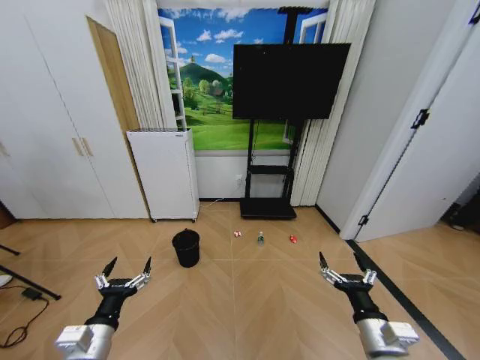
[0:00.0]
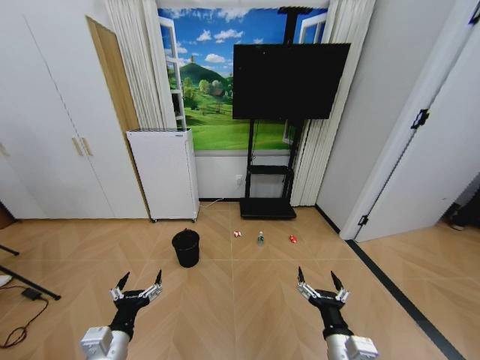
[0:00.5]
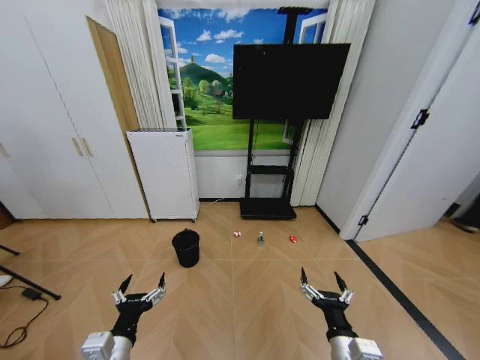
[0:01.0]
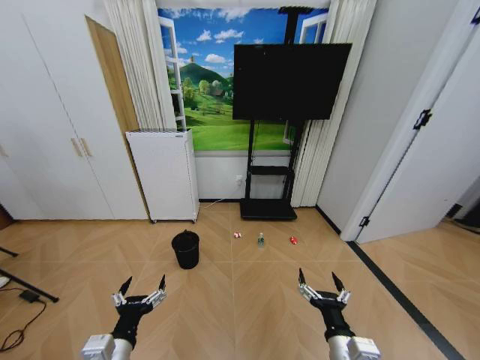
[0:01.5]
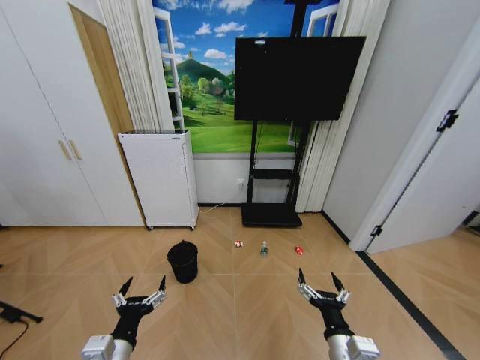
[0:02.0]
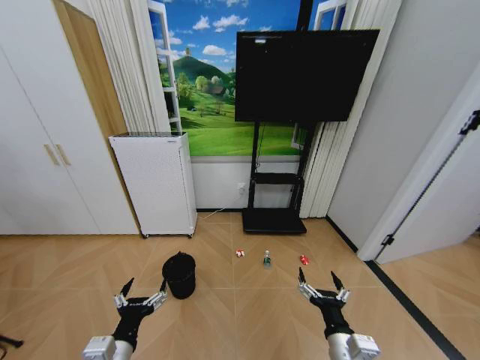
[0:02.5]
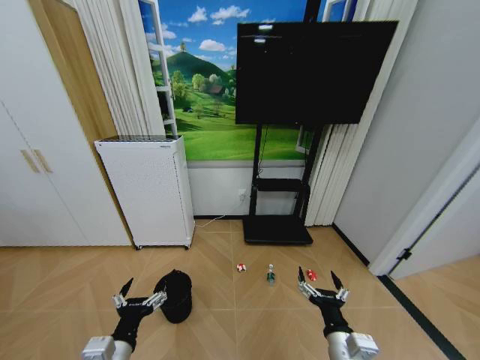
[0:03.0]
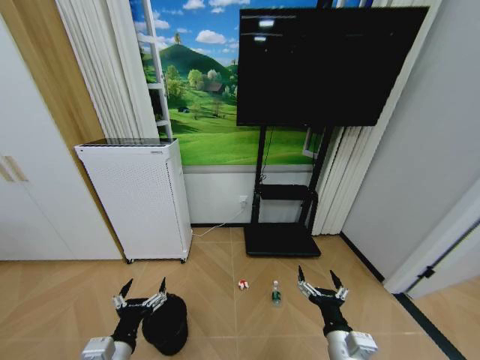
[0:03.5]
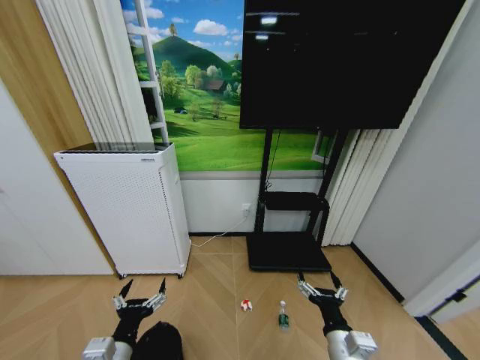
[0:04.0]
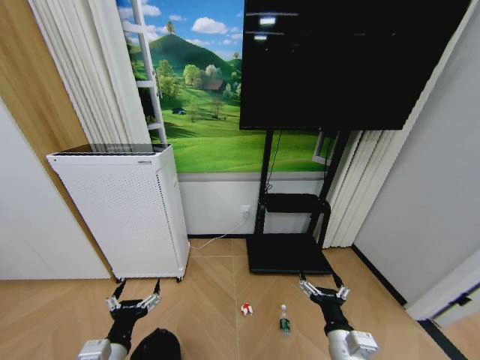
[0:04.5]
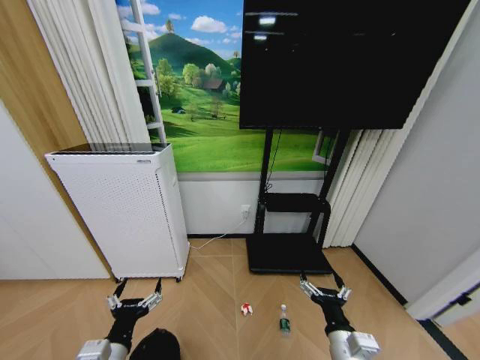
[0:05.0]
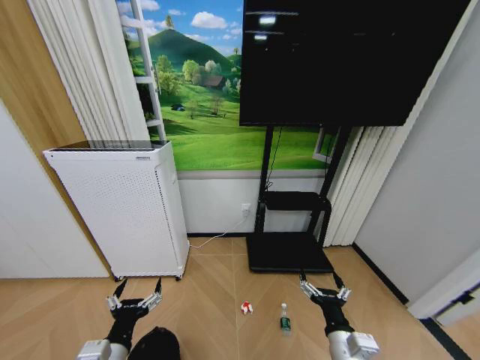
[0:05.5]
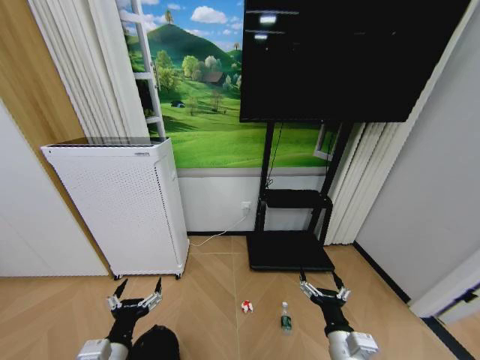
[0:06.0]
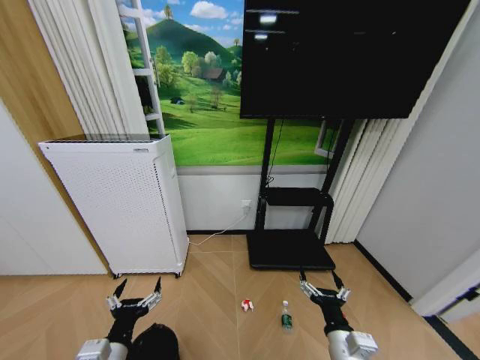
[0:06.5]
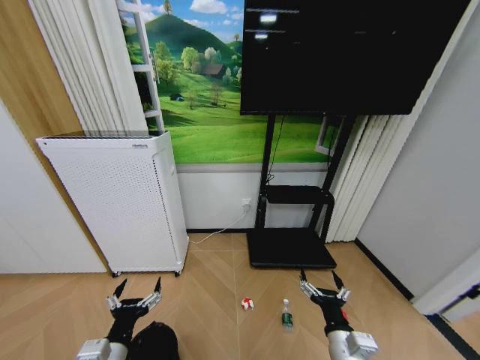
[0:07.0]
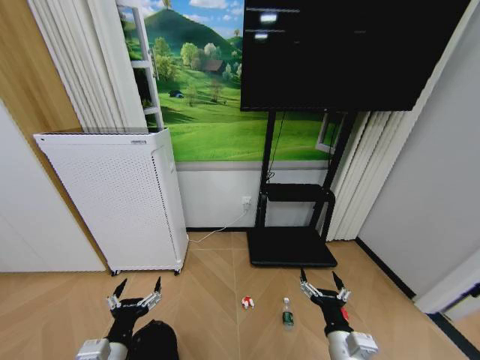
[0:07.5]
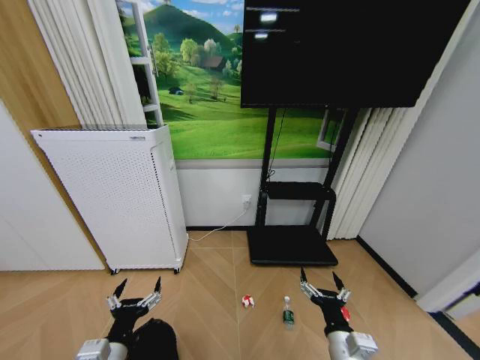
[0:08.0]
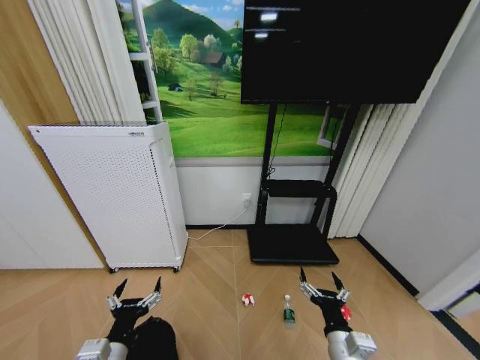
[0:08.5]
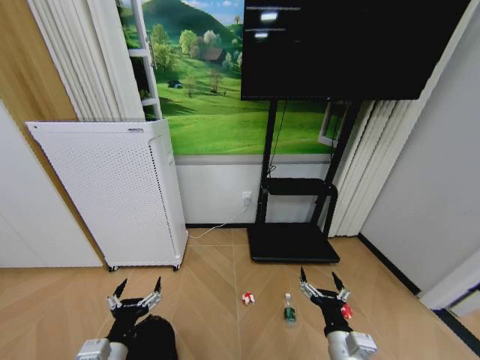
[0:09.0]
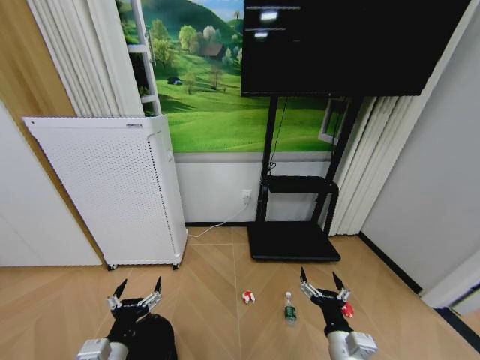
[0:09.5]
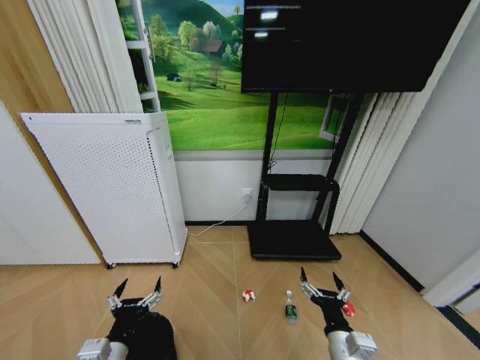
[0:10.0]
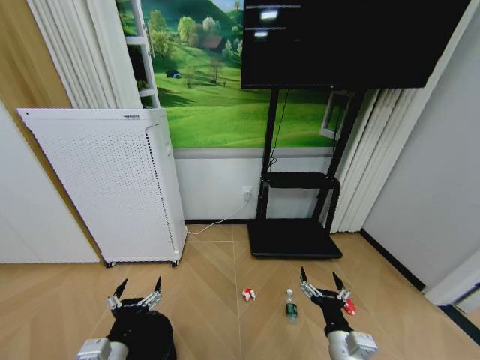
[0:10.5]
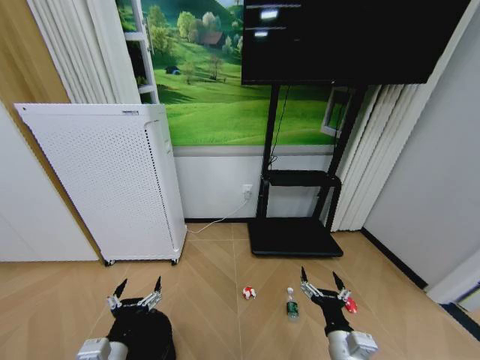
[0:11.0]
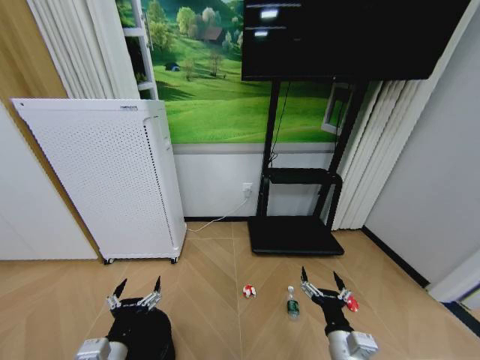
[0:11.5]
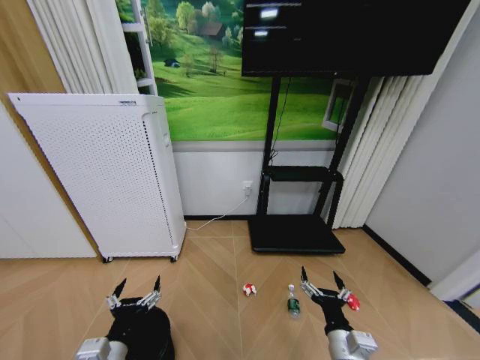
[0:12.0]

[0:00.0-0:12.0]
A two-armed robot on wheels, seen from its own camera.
Task of the whole recording: Pick up the trash bin and place the garbage on the floor into it.
0:04.0 to 0:12.0: Neither gripper changes place.

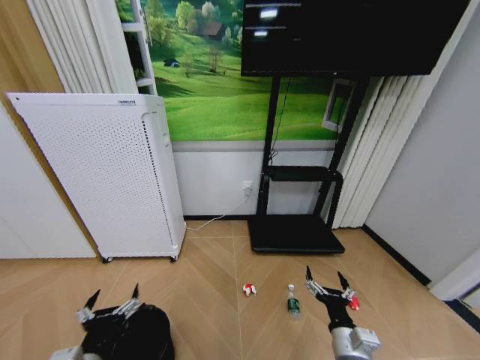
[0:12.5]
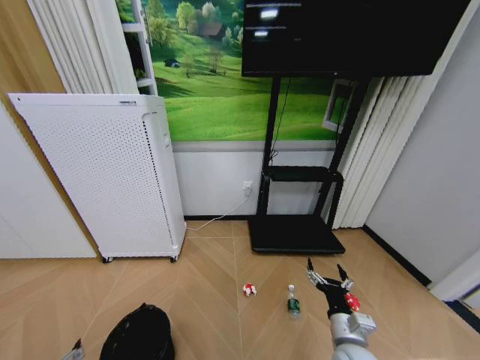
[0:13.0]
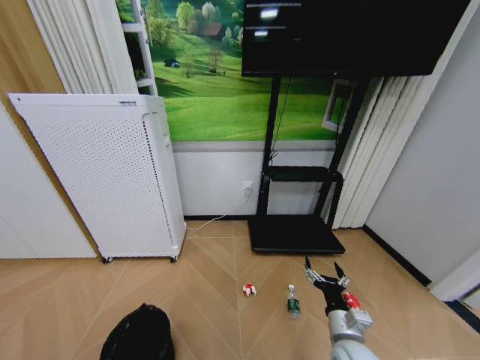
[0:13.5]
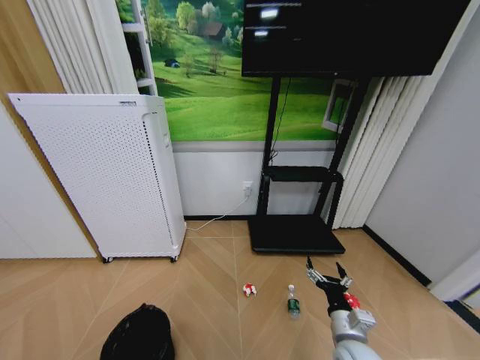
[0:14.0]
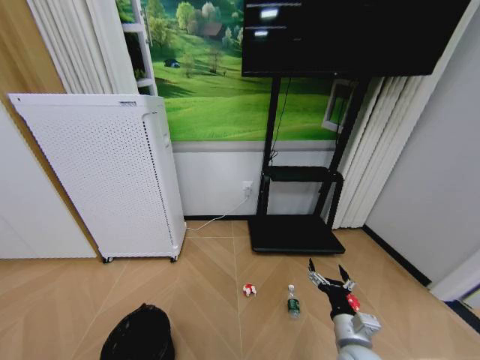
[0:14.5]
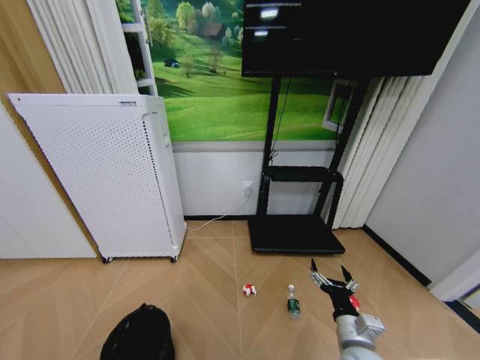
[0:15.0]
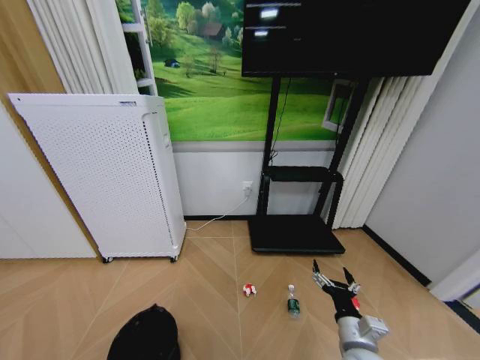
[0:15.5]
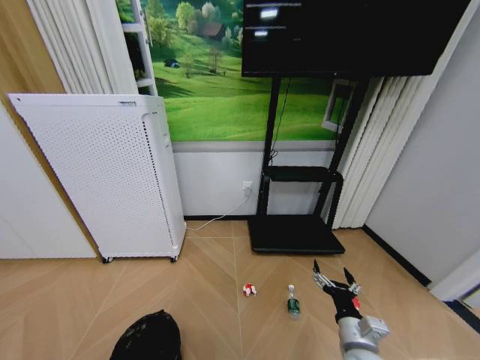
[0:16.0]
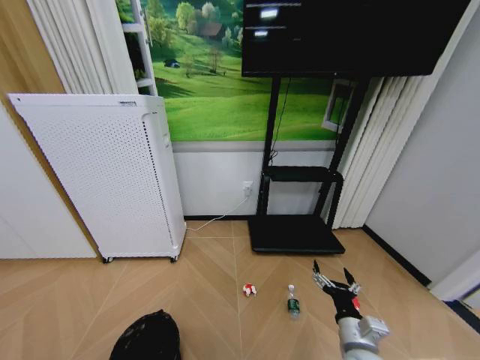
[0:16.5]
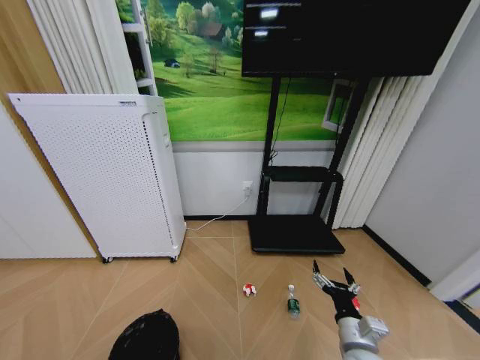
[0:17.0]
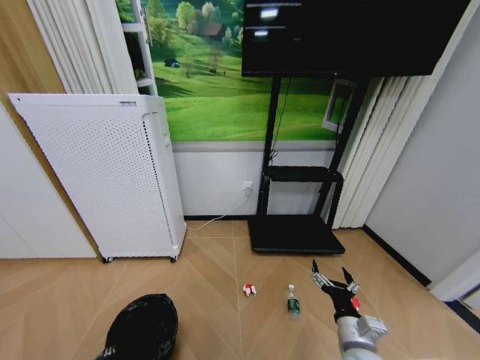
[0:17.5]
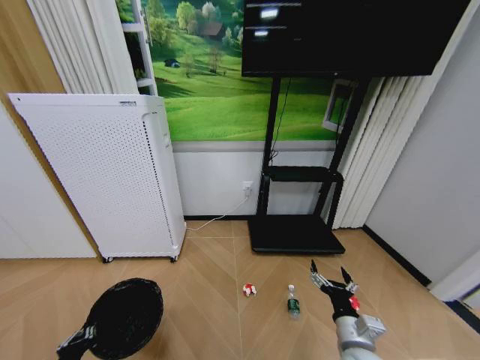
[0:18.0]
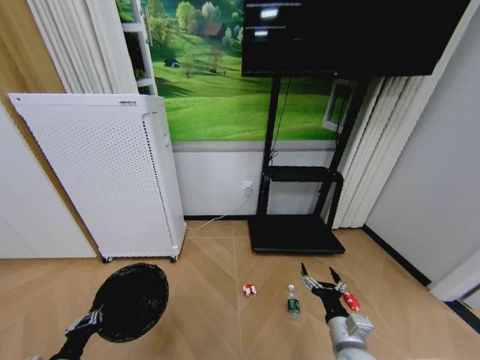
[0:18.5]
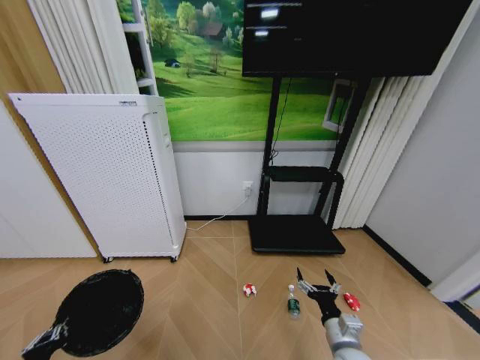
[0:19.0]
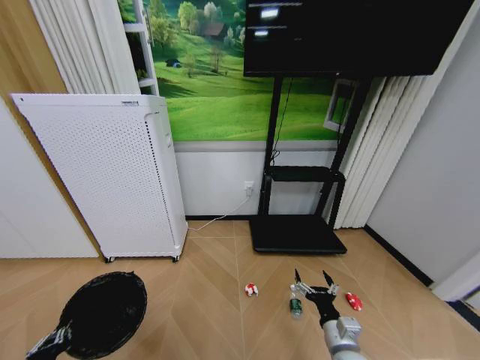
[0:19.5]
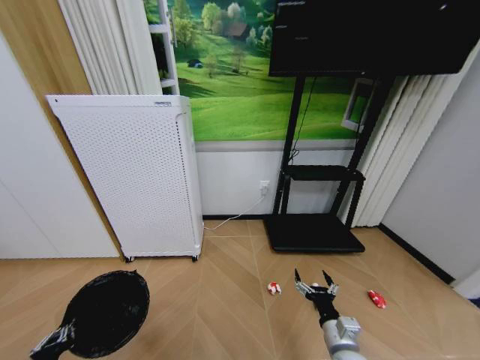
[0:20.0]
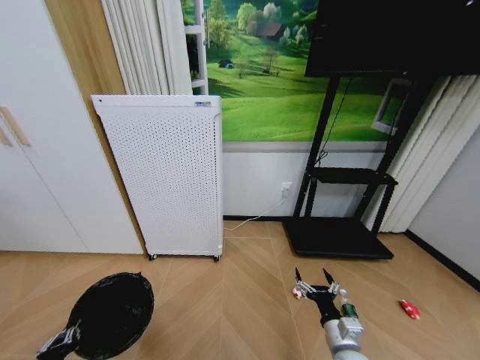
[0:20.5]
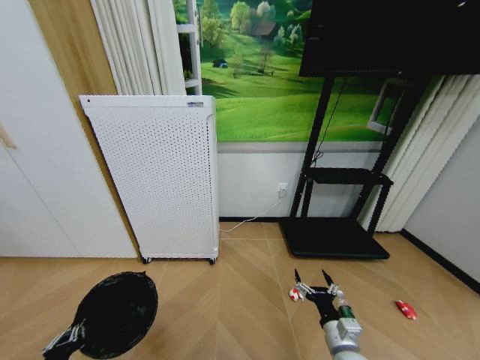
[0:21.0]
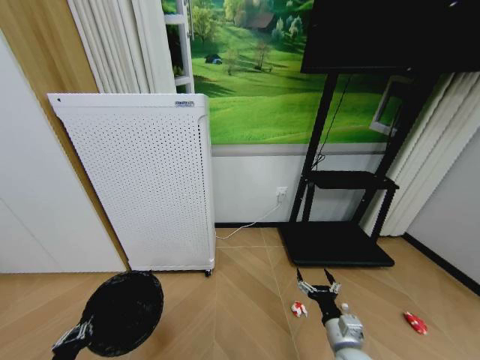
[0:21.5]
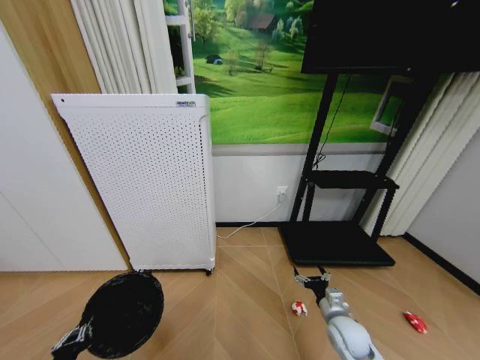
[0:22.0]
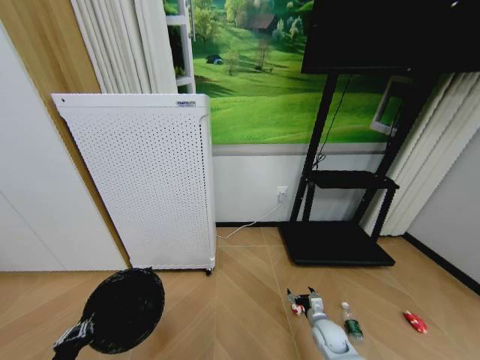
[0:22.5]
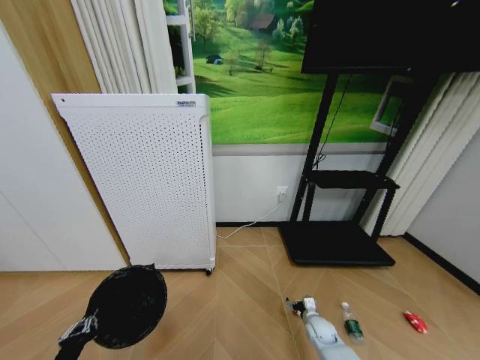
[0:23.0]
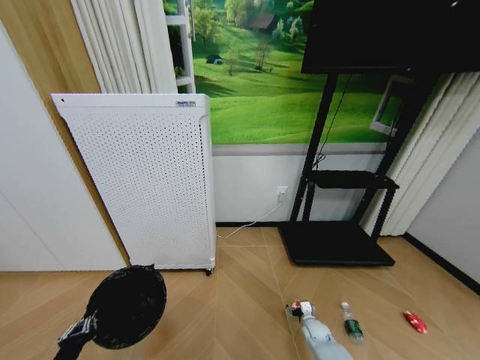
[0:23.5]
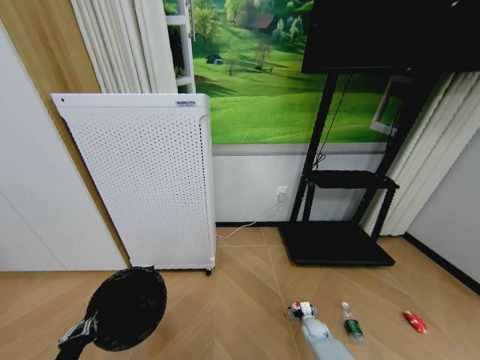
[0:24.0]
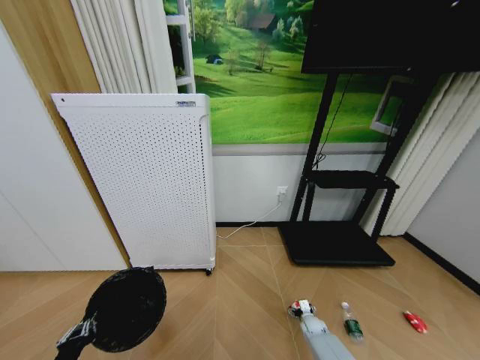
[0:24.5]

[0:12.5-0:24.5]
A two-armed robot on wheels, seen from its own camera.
Task of the whole recording: Pick up the trash bin and place the garbage on the floor into it.
0:12.5 to 0:14.5: The left gripper moves downward, approximately 10 cm.
0:14.5 to 0:16.5: The left gripper closes.
0:16.5 to 0:18.5: The left gripper is displaced to the left by approximately 5 cm.
0:18.5 to 0:20.5: The left gripper shifts by roughly 5 cm.
0:20.5 to 0:22.5: The right gripper heads downward and forward, covering about 15 cm.
0:22.5 to 0:24.5: The right gripper is displaced downward and forward by some 15 cm.

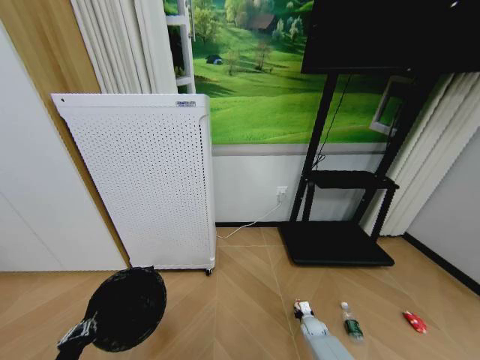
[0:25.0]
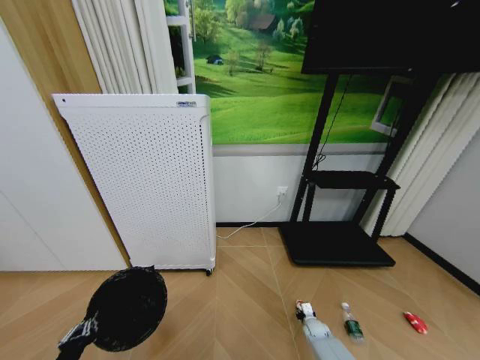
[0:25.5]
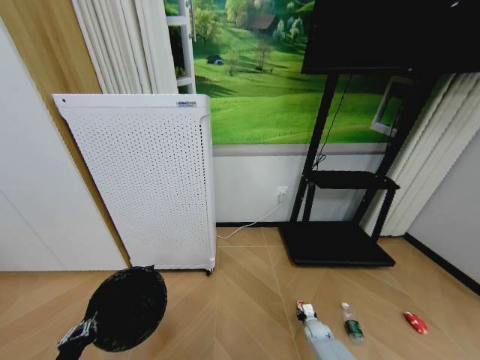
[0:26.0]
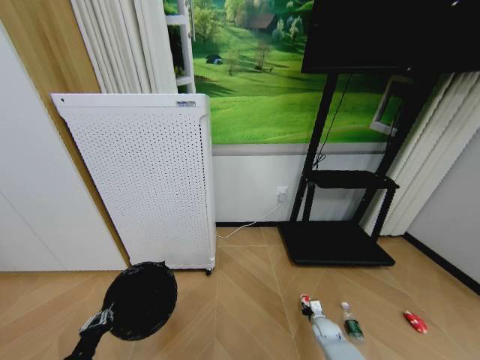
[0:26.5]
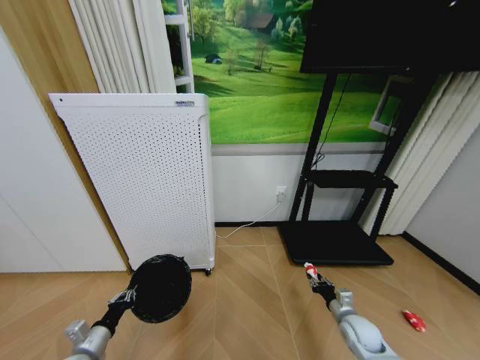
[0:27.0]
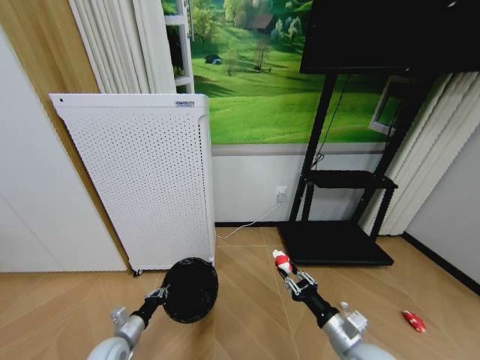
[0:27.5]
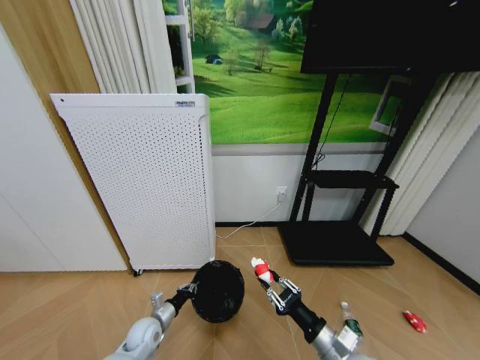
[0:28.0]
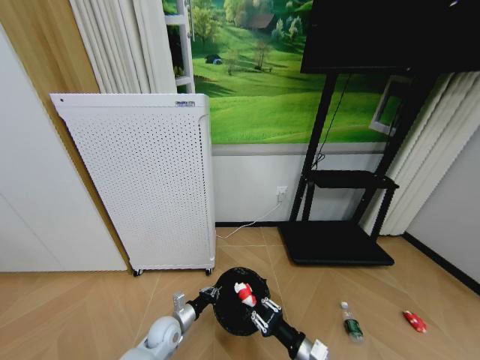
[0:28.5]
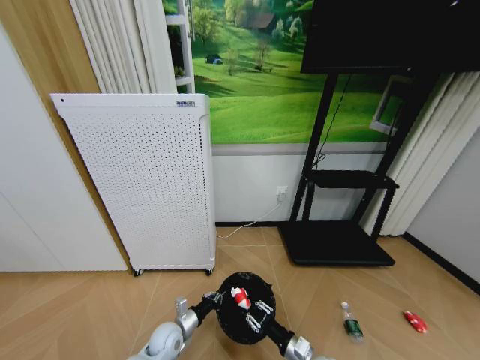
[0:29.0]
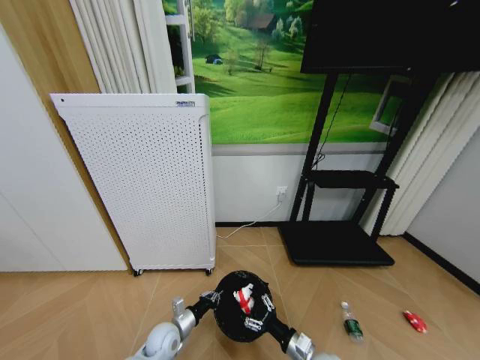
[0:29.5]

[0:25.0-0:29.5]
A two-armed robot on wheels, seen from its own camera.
Task of the whole recording: Pick up the trash bin and place the garbage on the floor into it.
0:25.0 to 0:27.0: The left gripper is displaced forward by approximately 10 cm; the right gripper shifts some 20 cm upward.
0:27.0 to 0:29.5: The left gripper travels to the right and forward by approximately 20 cm, while the right gripper is displaced to the left and backward by approximately 20 cm, and opens up.
